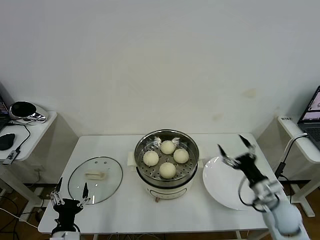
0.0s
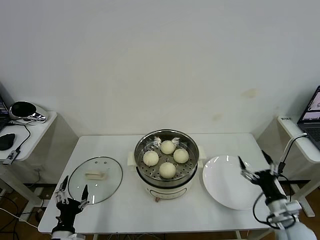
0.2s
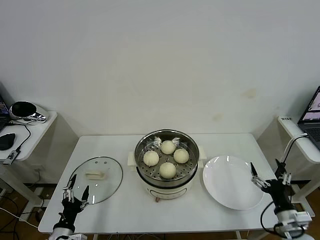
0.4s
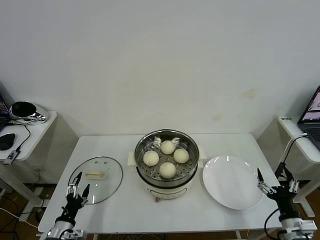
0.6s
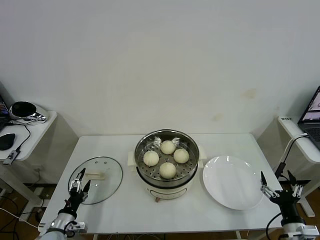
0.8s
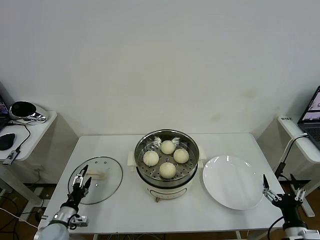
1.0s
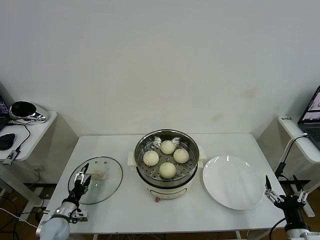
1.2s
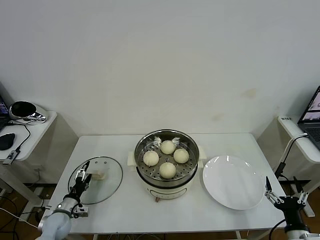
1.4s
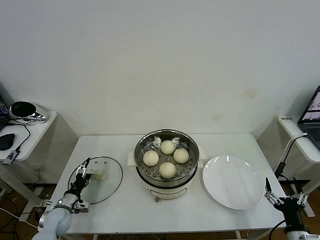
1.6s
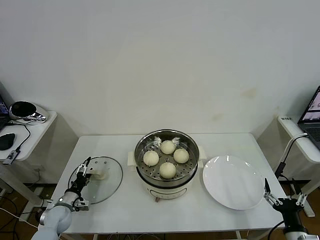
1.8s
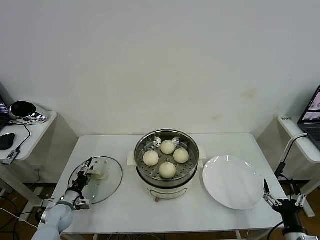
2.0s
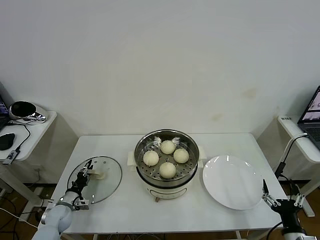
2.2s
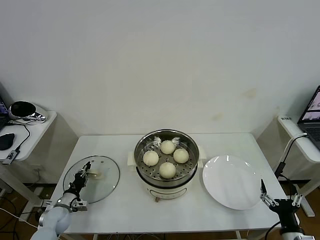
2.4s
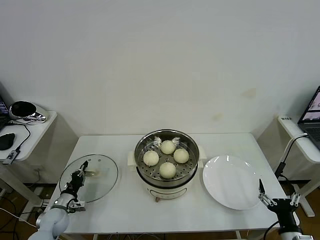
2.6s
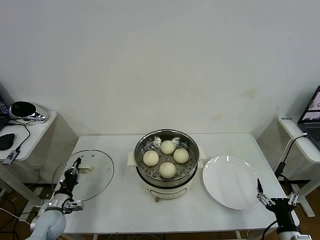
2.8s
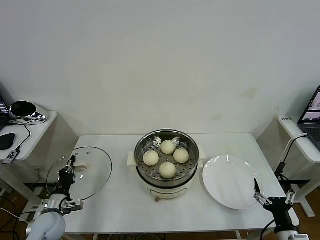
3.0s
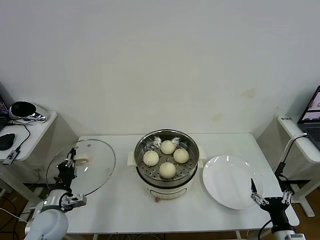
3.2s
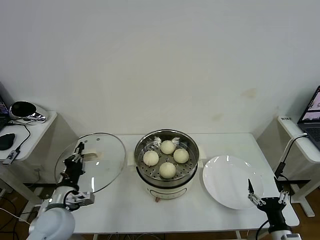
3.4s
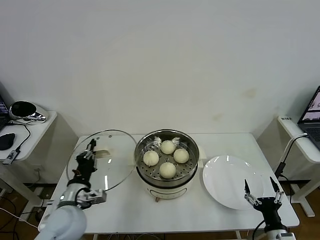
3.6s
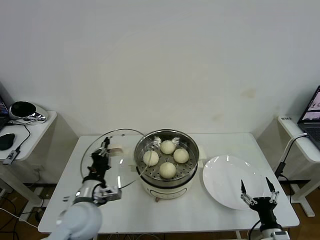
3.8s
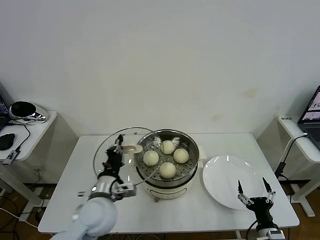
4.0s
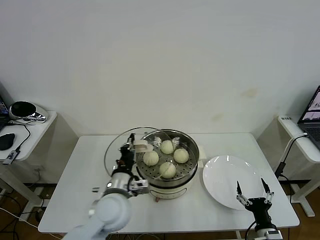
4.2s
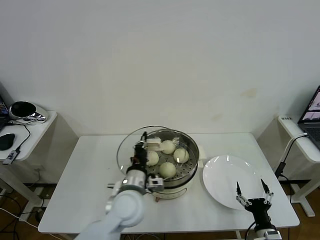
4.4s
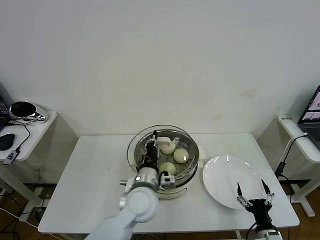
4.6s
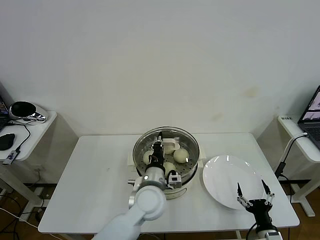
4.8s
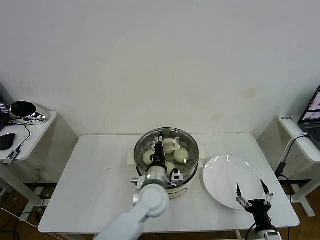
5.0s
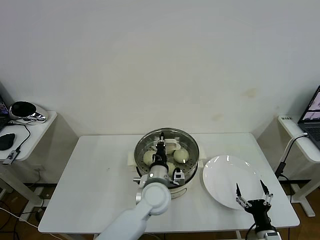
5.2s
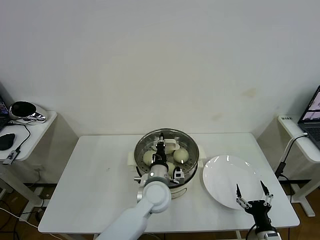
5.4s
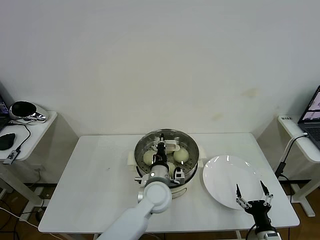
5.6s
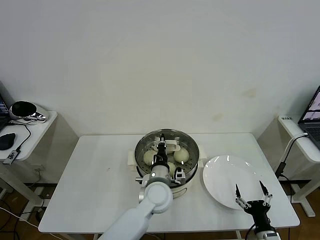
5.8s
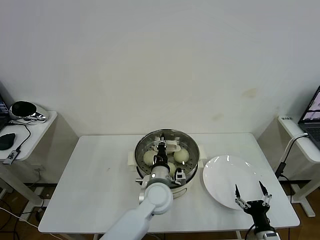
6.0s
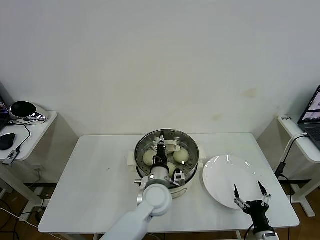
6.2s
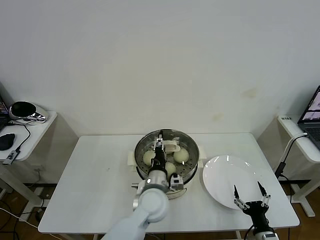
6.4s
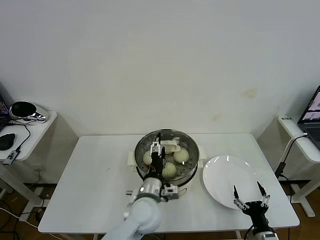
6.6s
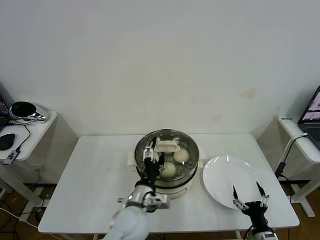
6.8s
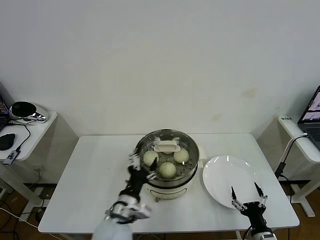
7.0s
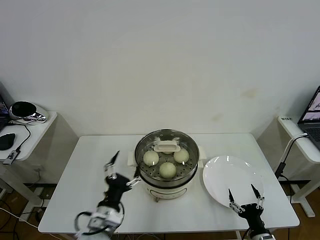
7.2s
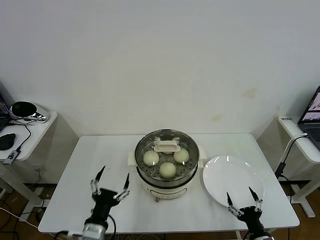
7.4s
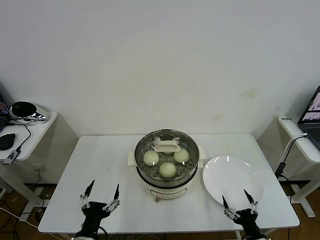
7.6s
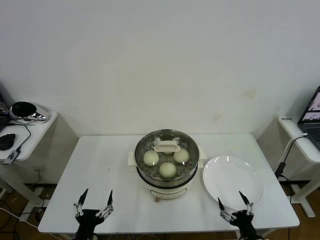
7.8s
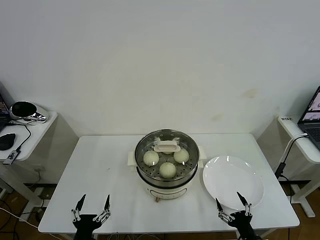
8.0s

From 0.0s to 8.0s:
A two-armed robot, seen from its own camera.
Task of the whole recording: take steamed baozi put them in steamer then cover it.
Step, from 0.0s to 2.6s: Grasp the pot lid with left gripper.
Step, from 3.0s to 6.6s: Place the pot lid on the steamer with left gripper.
From 0.0s to 1.6s: The left gripper moves forward, to the left and downward, roughly 20 cm. The right gripper travels backward by roughly 15 cm.
From 1.6s to 3.2s: The left gripper moves upward and to the right, about 15 cm, and closes its fingers.
From 3.2s to 4.8s: The right gripper moves roughly 5 cm. Meanwhile the left gripper travels to the right by approximately 30 cm.
From 4.8s to 6.4s: The left gripper opens its fingers.
From 6.4s to 8.0s: The left gripper moves to the left and backward, some 30 cm, and opens.

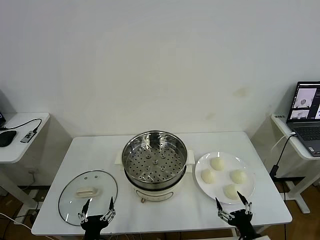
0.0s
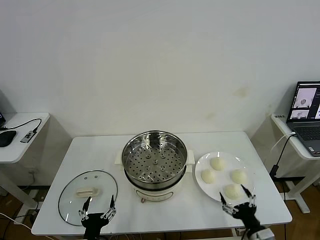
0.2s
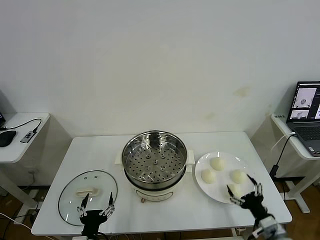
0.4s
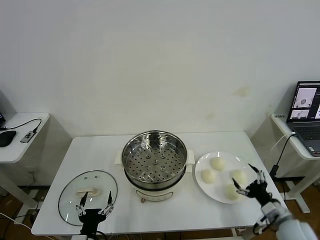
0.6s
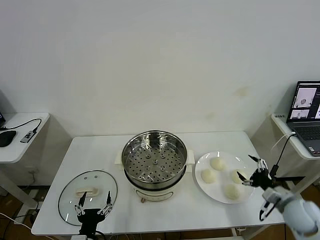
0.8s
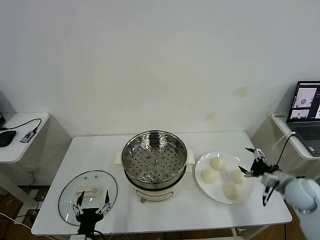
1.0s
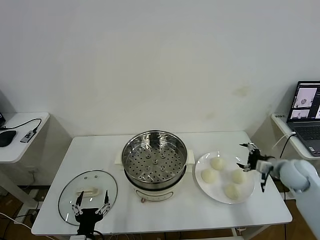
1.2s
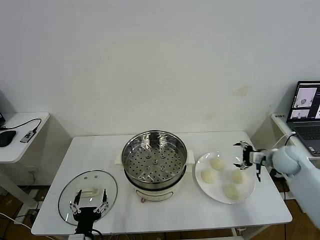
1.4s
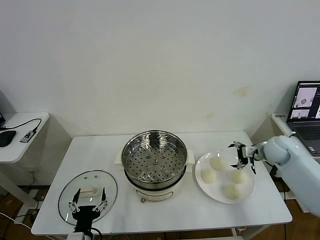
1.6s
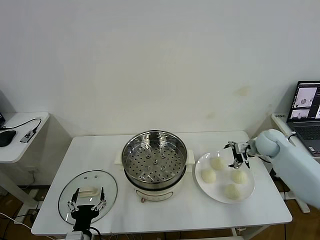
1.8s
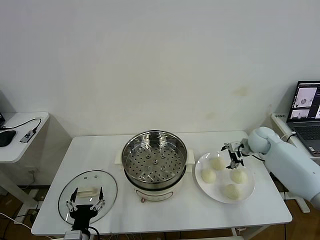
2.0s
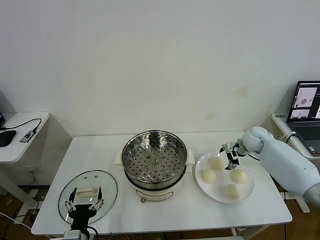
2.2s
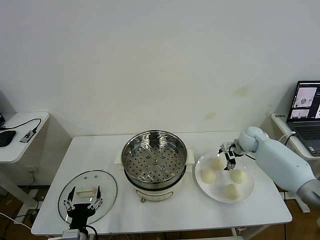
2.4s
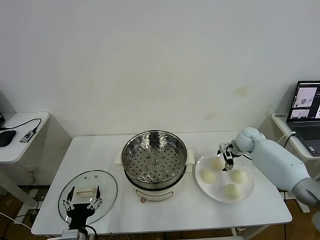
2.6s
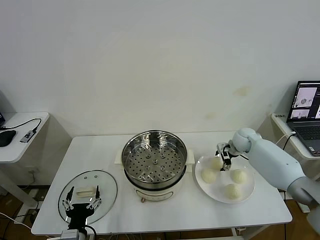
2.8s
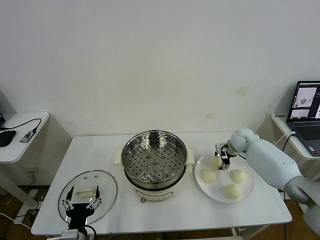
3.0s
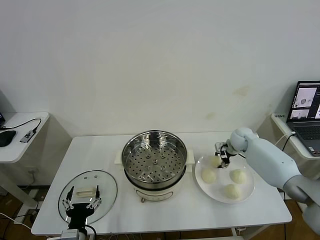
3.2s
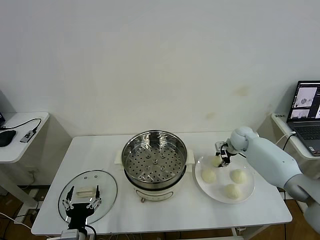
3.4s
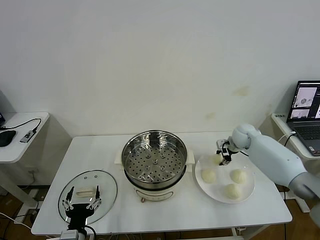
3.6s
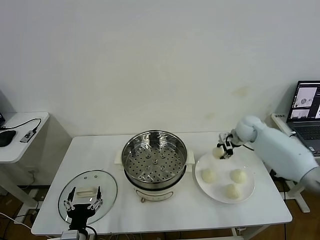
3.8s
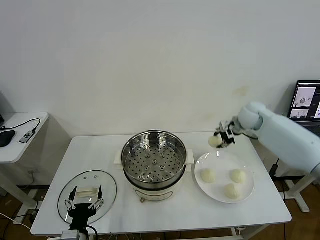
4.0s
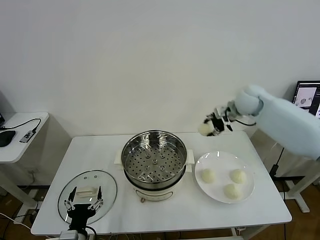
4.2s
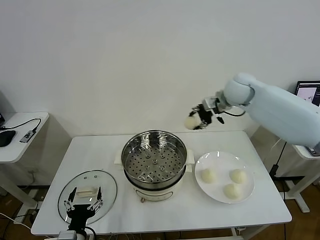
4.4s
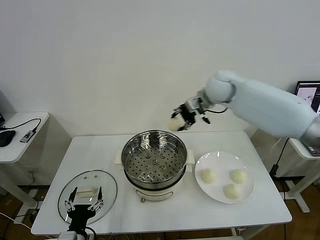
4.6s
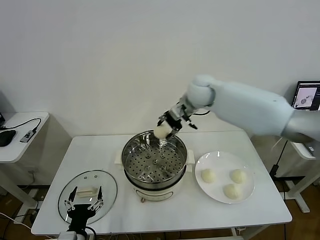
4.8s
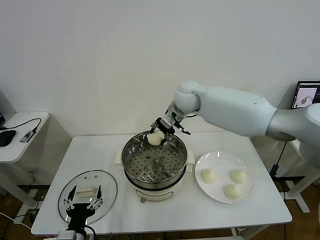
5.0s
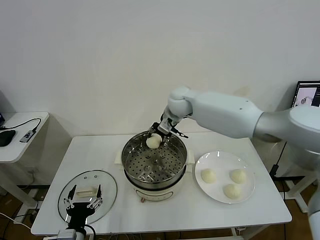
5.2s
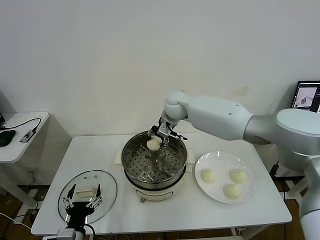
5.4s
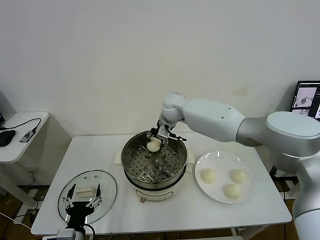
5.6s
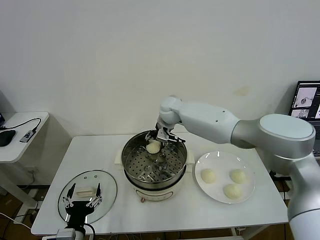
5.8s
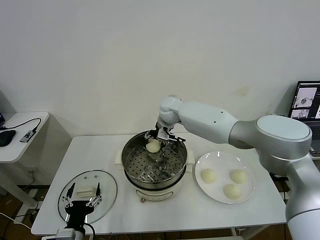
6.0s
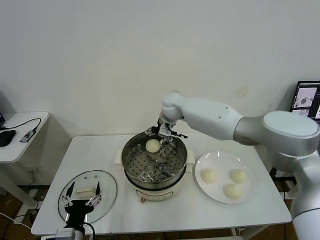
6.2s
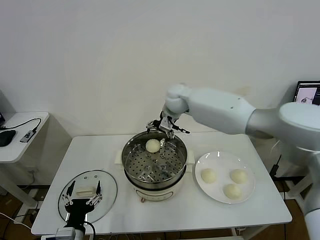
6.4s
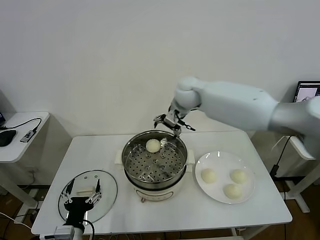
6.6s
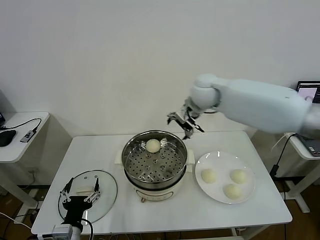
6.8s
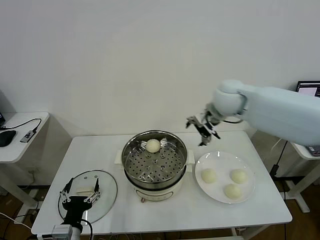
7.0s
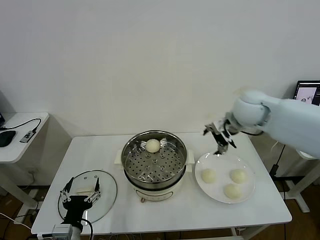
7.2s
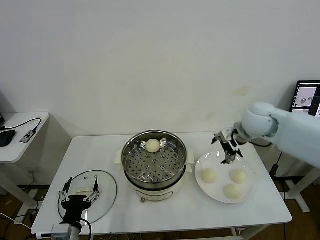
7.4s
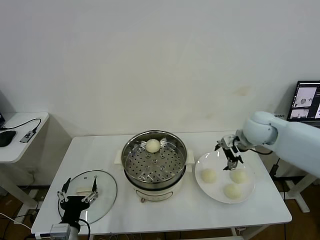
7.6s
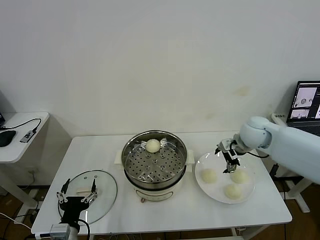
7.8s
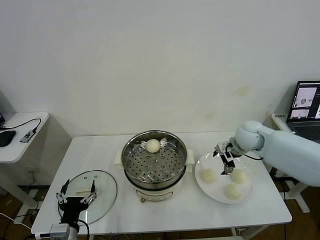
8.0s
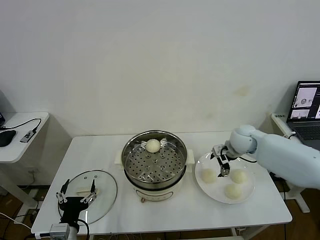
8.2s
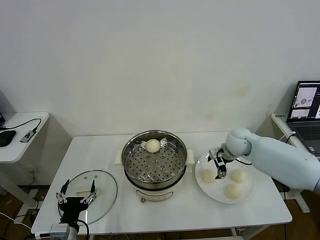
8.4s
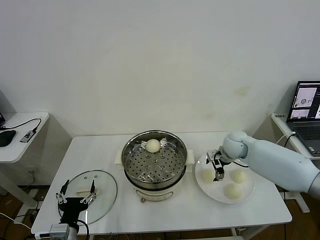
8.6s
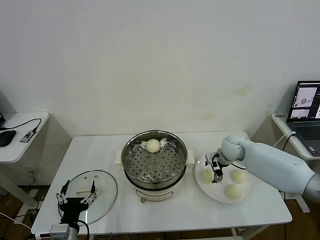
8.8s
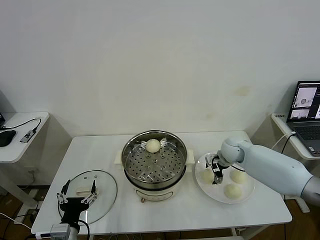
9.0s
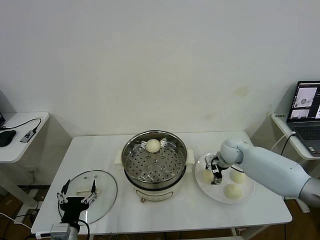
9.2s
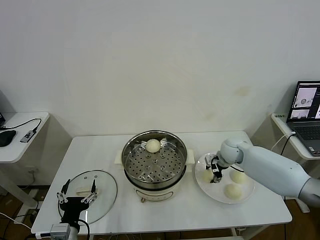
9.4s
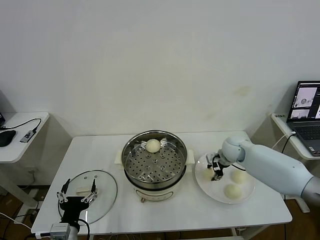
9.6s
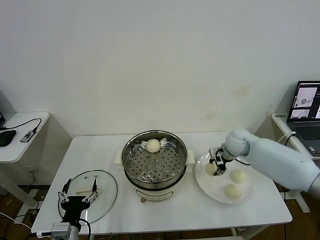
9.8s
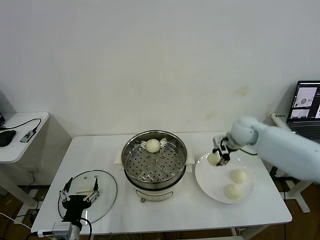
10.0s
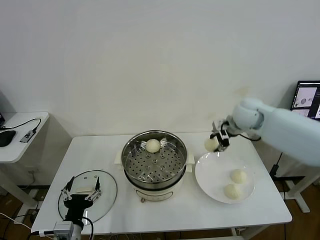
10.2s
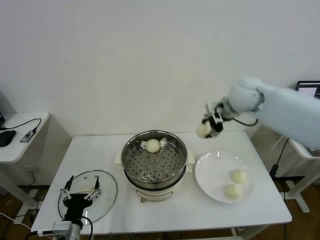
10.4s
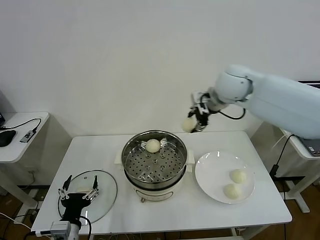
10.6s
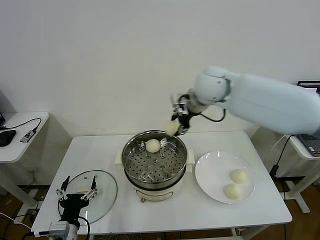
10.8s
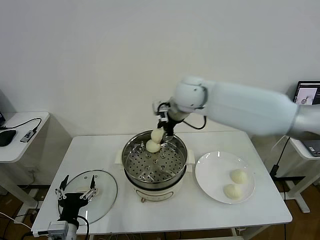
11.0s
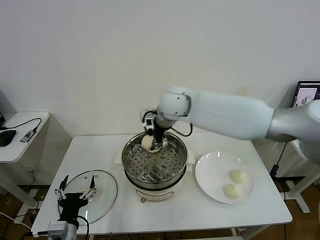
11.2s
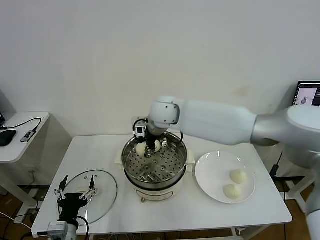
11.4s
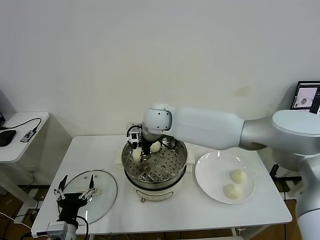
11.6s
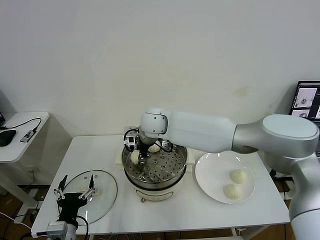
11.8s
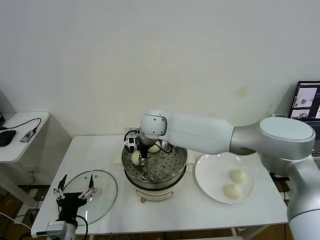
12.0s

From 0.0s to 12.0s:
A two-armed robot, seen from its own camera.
Task of the whole recording: take steamed baozi put them in steamer then cover it.
Step, from 0.0s to 3.2s: Grasp the baozi in the plate with right gripper.
Step, from 3.4s to 6.2s: Place the baozi on the steamer with right gripper.
Step, from 6.4s to 9.6s: Grasp the baozi in the plate with right gripper.
From 1.6s to 3.0s: The right gripper is displaced forward, to the left and downward by about 10 cm, and closes up.
From 3.0s to 4.4s: The right gripper goes some 30 cm upward and to the left, and closes.
From 4.4s to 6.0s: The right gripper goes approximately 20 cm to the left and downward, and opens.
From 6.0s to 7.6s: The right gripper travels to the right and backward by roughly 30 cm.
From 7.6s to 9.0s: The right gripper heads downward, covering approximately 15 cm.
From 9.0s to 10.4s: The right gripper moves upward, approximately 25 cm, and closes.
From 10.4s to 12.0s: The right gripper shifts some 30 cm to the left and downward, and opens its fingers.

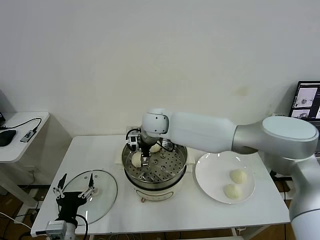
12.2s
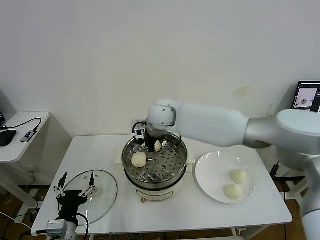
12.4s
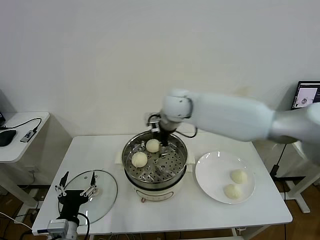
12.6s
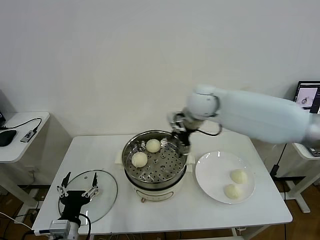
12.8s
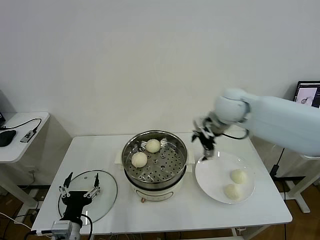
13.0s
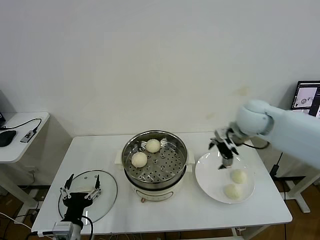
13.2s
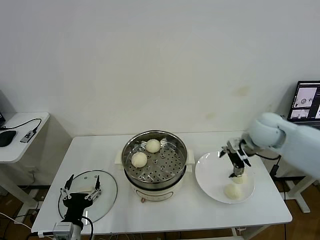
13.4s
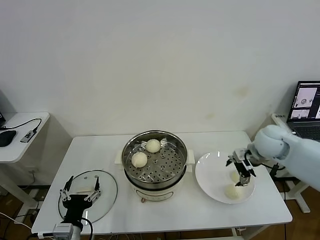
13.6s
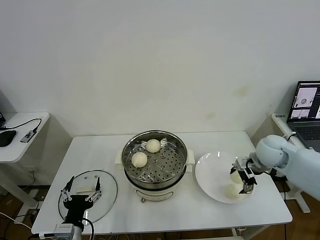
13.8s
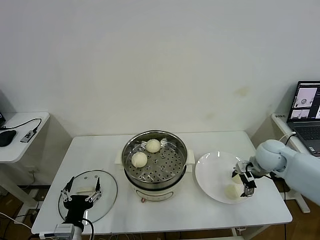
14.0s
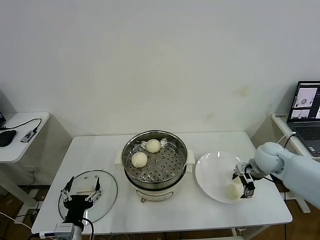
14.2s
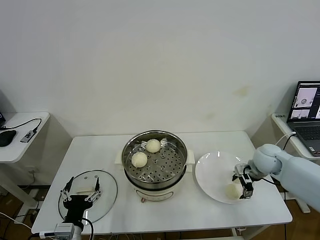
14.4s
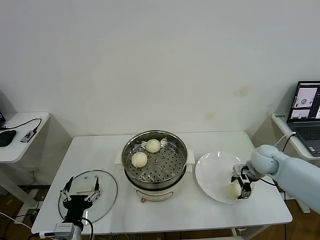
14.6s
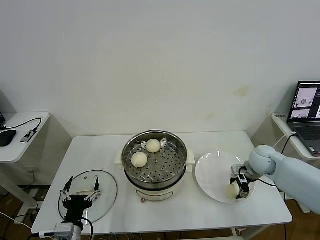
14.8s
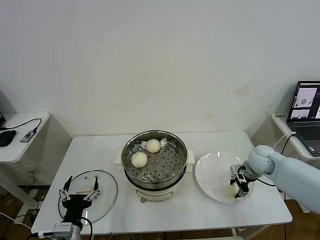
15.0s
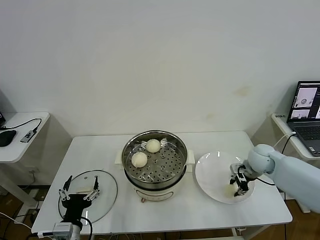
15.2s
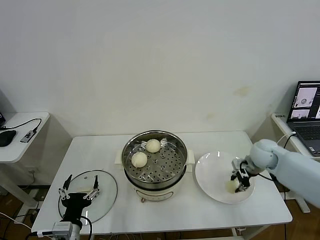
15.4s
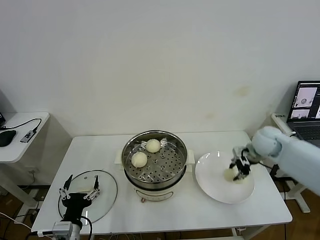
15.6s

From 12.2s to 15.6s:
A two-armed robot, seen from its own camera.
Task of the whole recording: take steamed baozi put them in steamer then cover it.
Step, from 12.4s to 15.2s: Grasp the baozi in the plate with right gripper.
From 12.2s to 13.8s: The right gripper goes some 35 cm to the right.
From 13.8s to 15.6s: The right gripper reaches roughly 5 cm downward, then returns, and closes its fingers.
